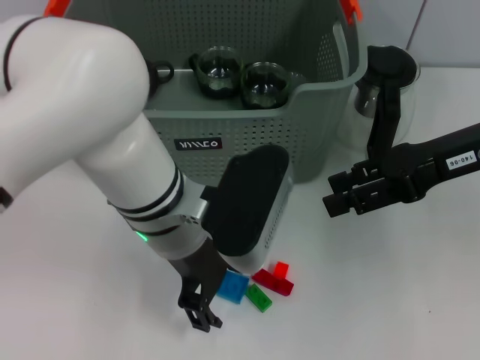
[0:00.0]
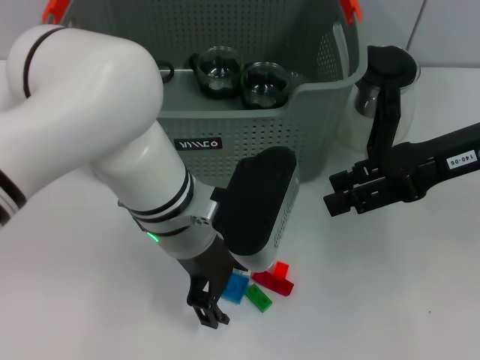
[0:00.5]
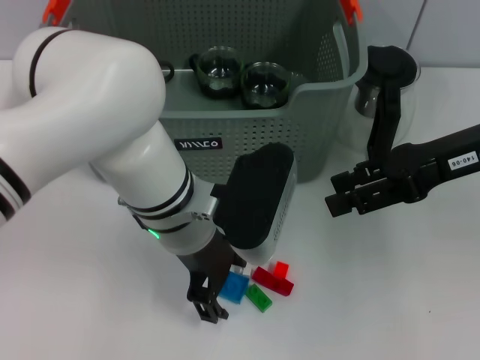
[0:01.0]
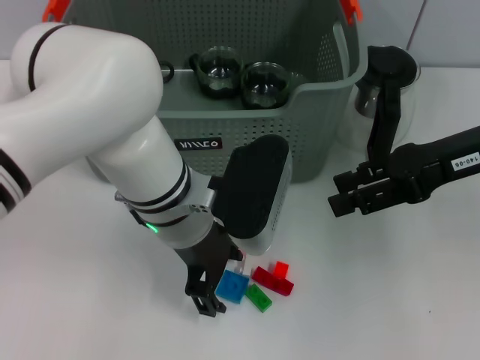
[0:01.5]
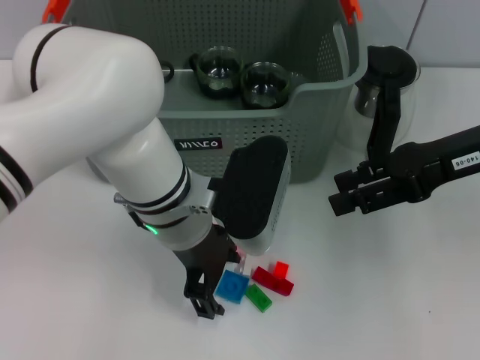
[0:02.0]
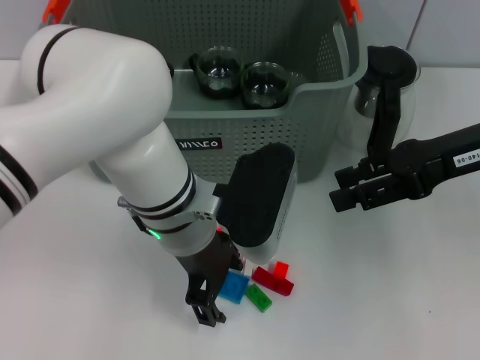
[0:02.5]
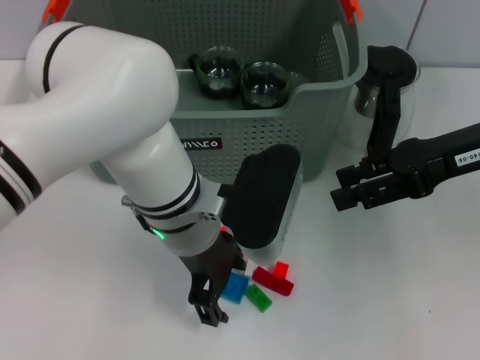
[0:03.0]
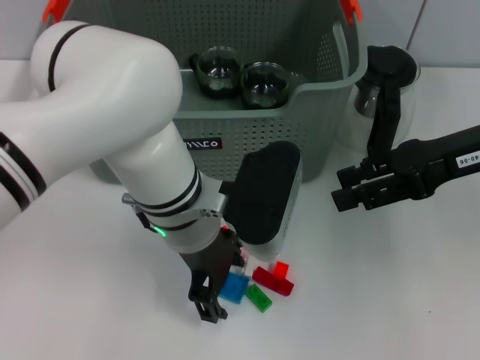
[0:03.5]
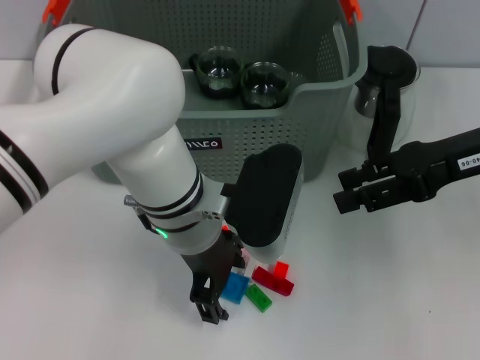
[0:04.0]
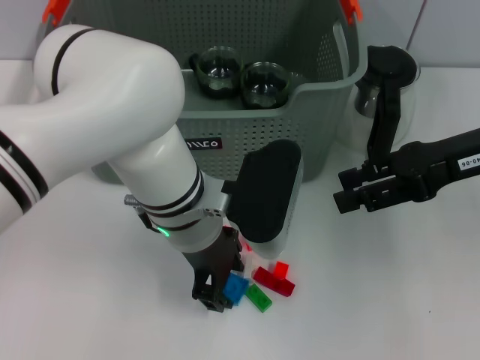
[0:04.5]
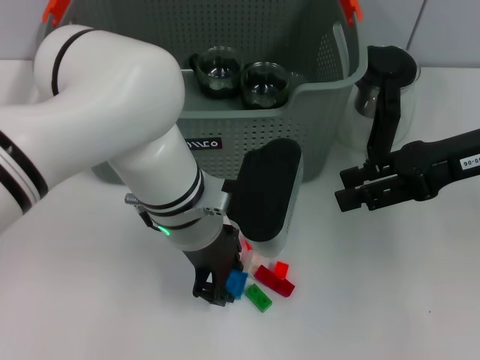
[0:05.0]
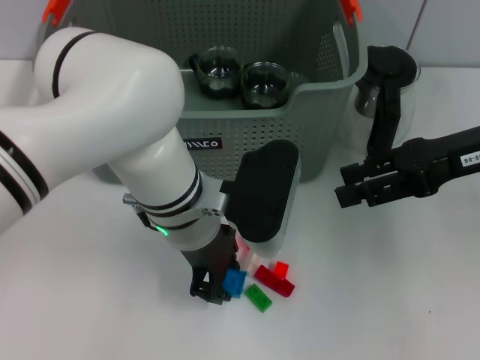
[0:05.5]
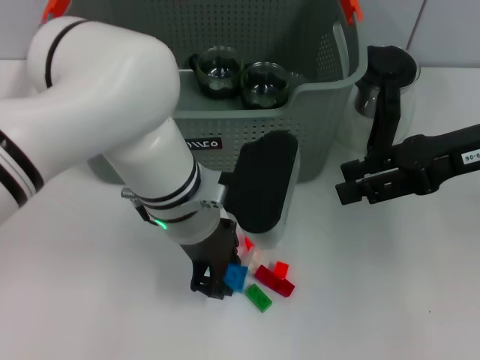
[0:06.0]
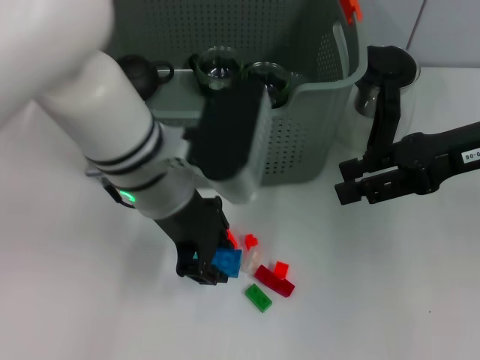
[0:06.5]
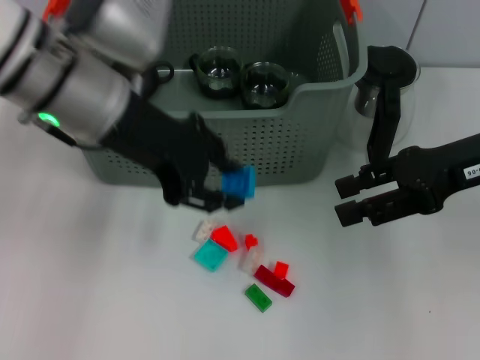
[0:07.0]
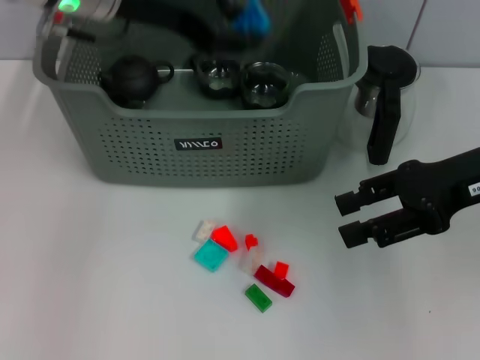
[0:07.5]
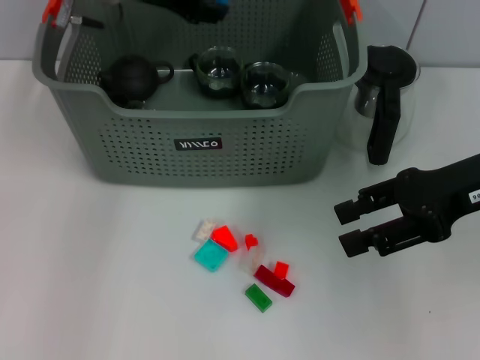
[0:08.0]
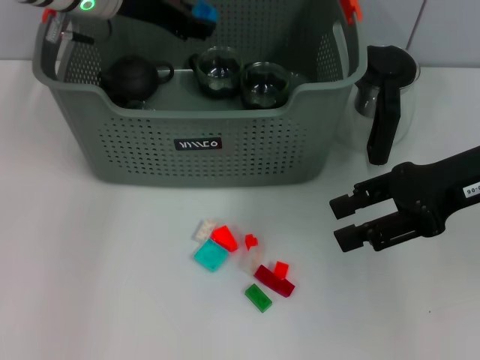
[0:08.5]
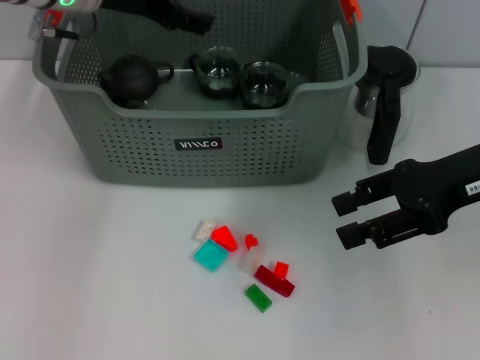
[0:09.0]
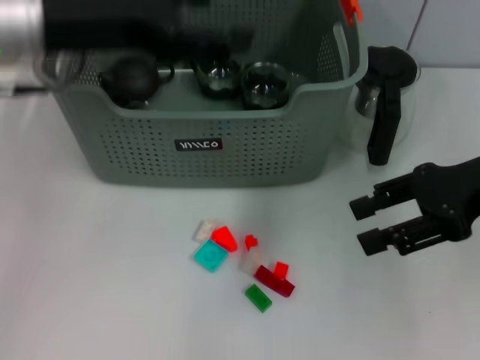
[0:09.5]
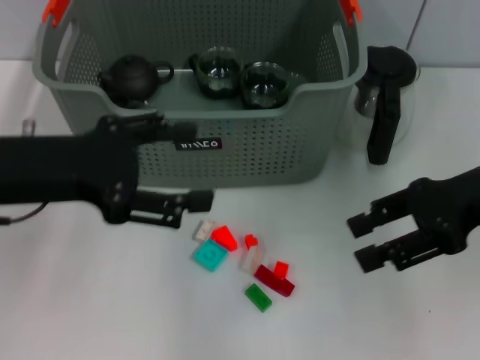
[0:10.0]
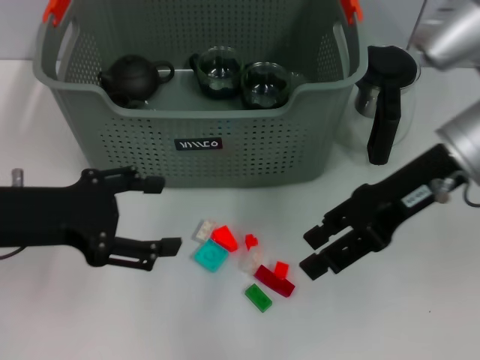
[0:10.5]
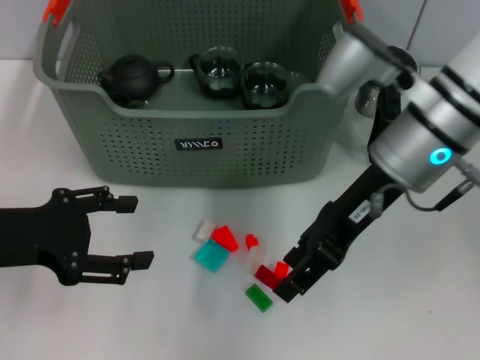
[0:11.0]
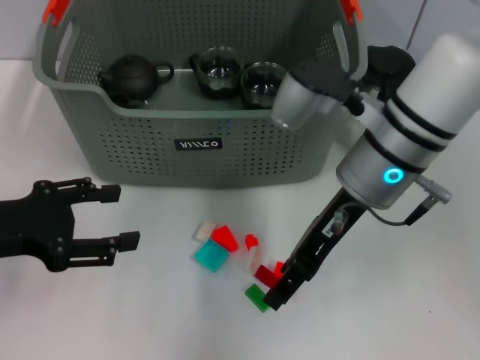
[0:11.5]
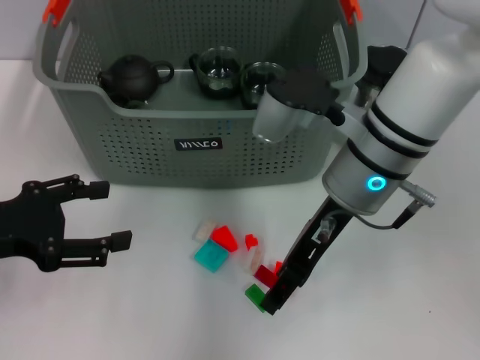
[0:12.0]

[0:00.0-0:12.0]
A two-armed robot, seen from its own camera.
Task of the whole recording: pick up the teacup on the table and place it into the storage bin, pick up the block on the table and place it into the storage bin.
Step, 0:00.0 to 0:05.5: Grasp the dark blue block with left gripper.
Step, 0:06.0 to 0:09.0: Place the dark blue block in the storage box with left gripper.
0:00.0 to 0:02.0: There are only small adjustments of the grippers.
0:02.0 to 0:04.0: Neither gripper changes place.
0:04.0 to 0:06.0: The left gripper closes its fingers.
0:06.0 to 0:08.0: The left gripper is displaced forward, upward and to the left by roughly 20 cm.
0:08.0 to 0:10.0: The left gripper travels backward and to the left by approximately 20 cm, and opens up.
0:10.0 to 0:12.0: The right gripper goes about 15 cm to the left, while the left gripper heads to the left and downward, covering roughly 10 cm.

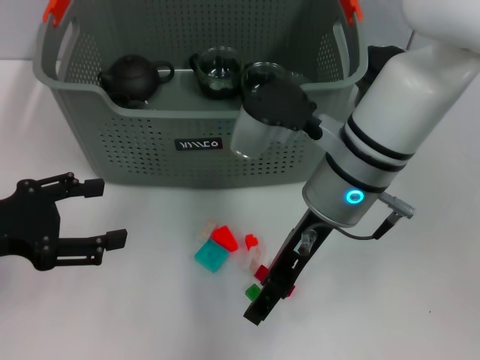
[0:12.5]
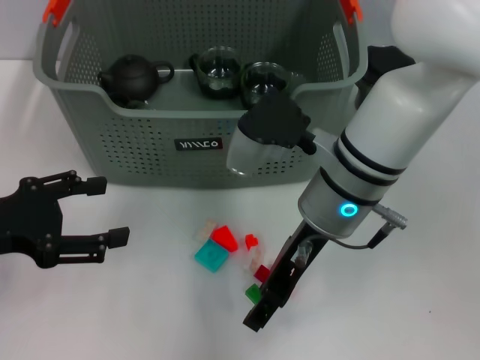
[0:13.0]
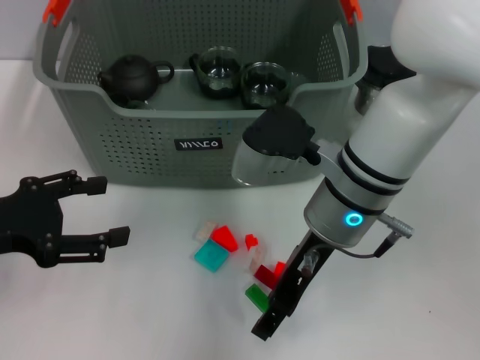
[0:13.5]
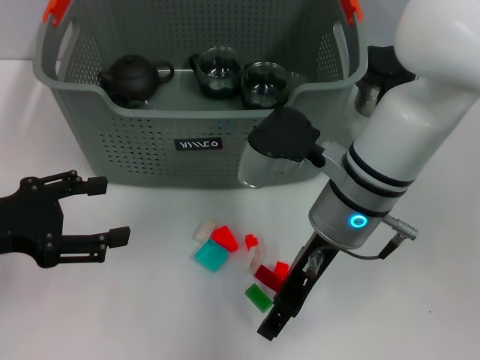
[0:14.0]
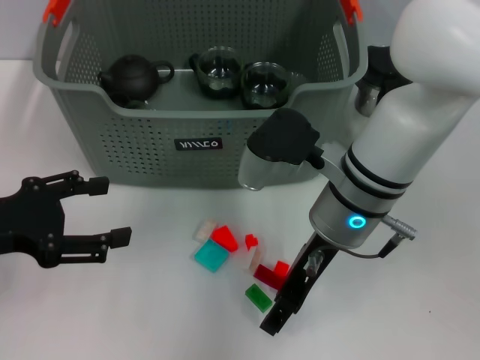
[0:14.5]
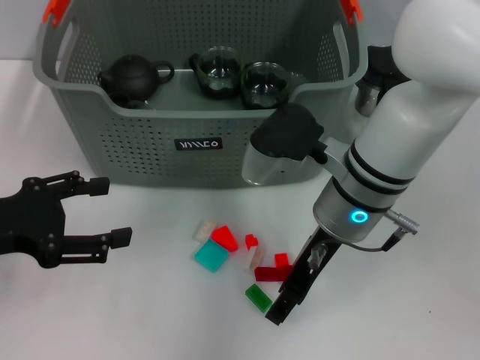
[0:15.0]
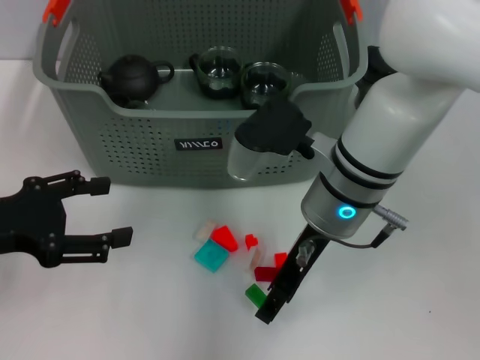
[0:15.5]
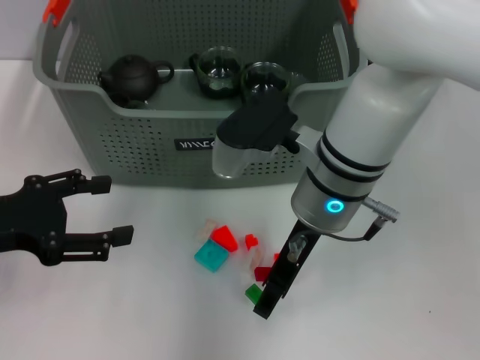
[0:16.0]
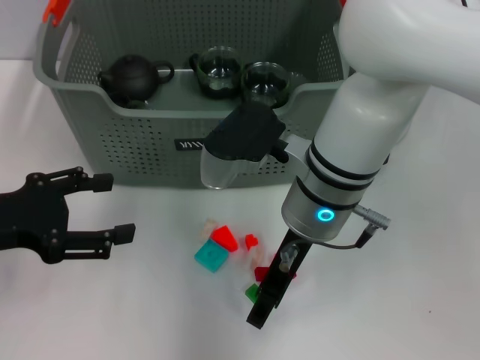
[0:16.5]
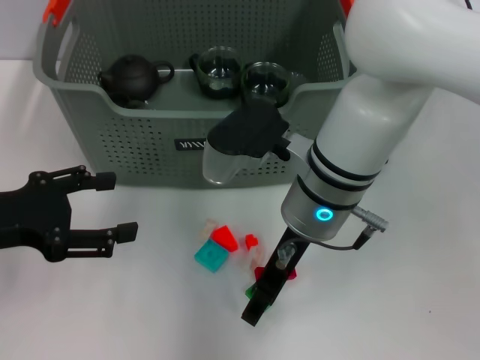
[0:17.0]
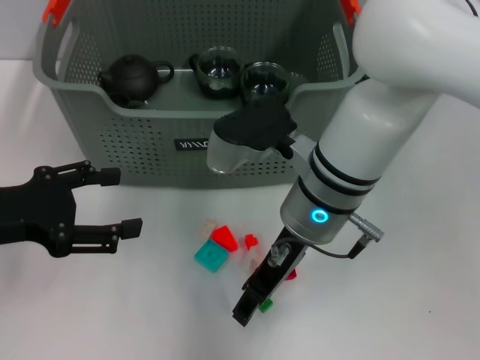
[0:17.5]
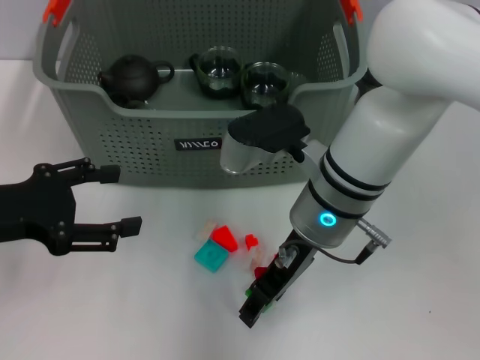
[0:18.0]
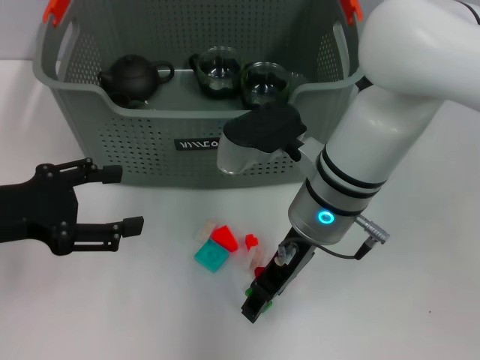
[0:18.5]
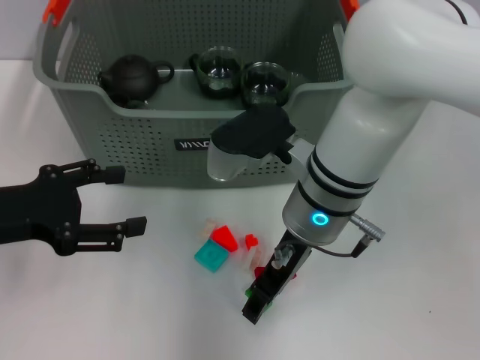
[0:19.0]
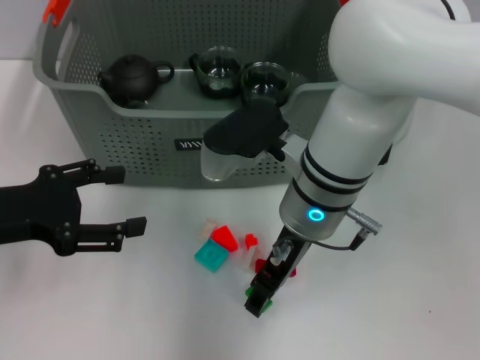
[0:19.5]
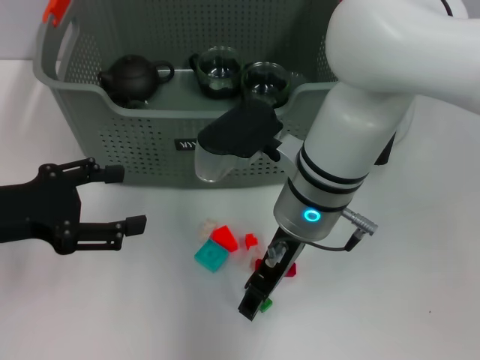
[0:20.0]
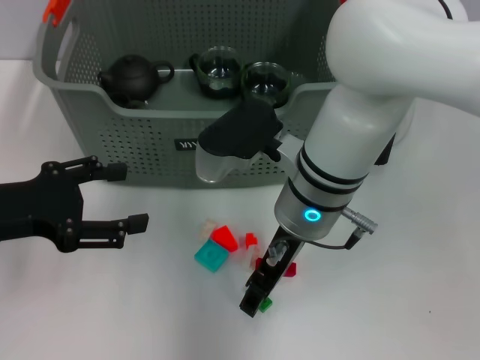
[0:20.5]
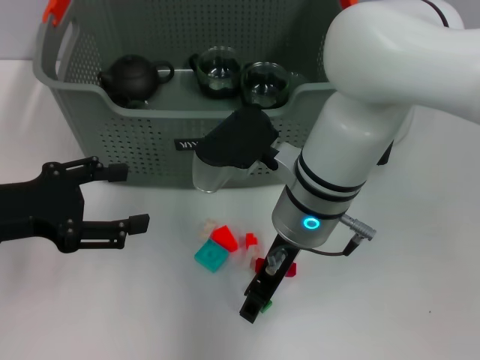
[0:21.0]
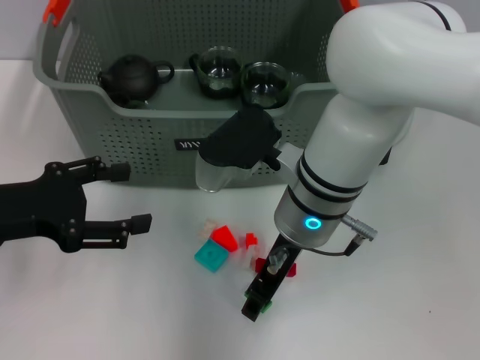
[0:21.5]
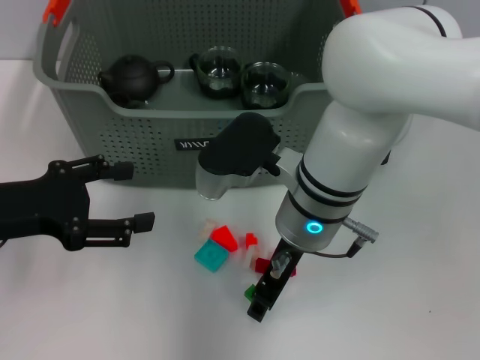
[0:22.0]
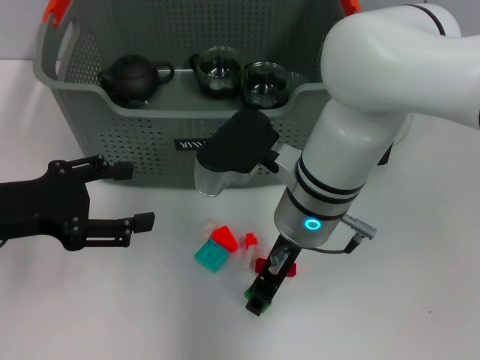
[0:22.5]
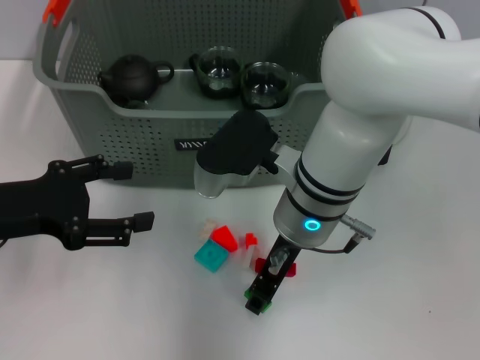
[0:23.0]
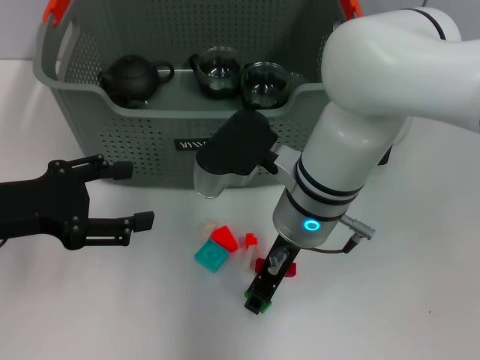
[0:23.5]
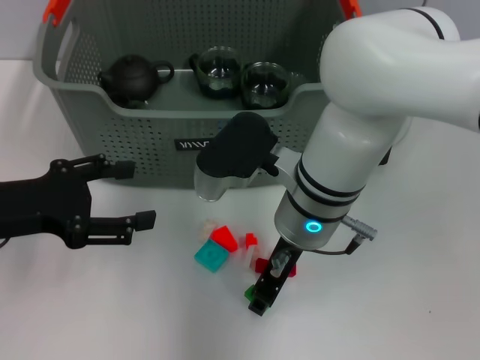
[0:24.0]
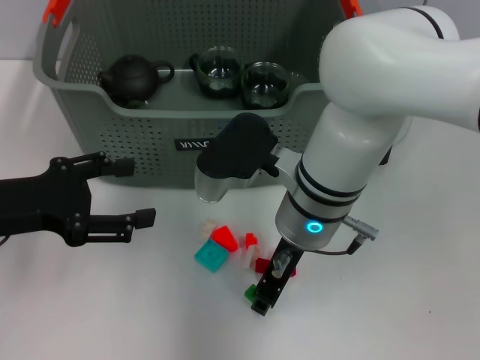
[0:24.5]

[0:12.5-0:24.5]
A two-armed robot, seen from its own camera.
Task of the whole recording: pick up the teacup on the table and place it into the storage bin, pick up the block on the table and place it into the storage bin.
0:12.5 to 0:14.5: The grippers make only small movements.
0:16.5 to 0:20.5: The grippers make only small movements.
0:20.5 to 0:22.5: Both grippers stay about where they are.
0:22.5 to 0:24.5: Both grippers stay put.

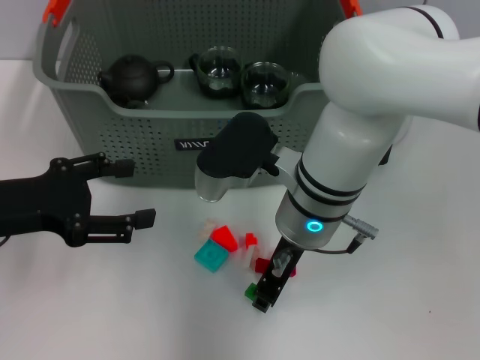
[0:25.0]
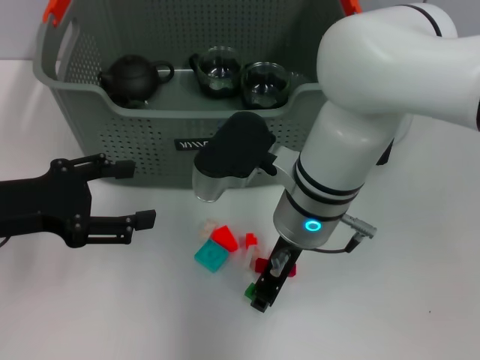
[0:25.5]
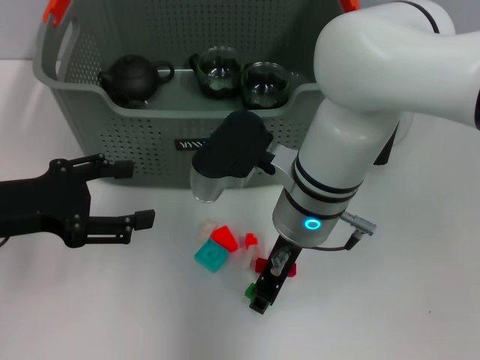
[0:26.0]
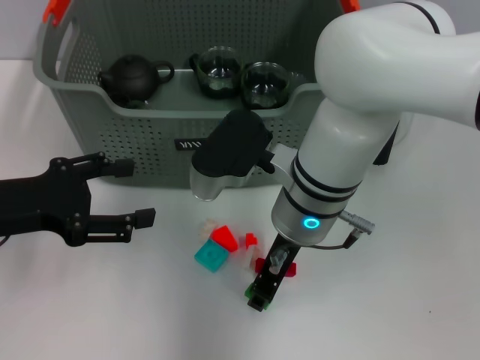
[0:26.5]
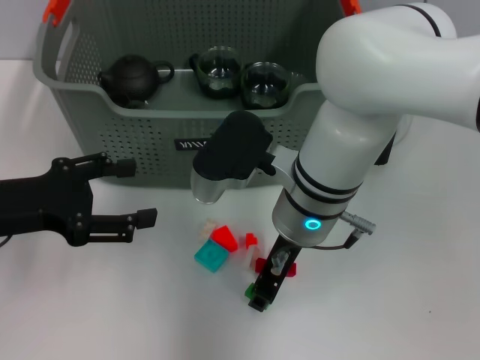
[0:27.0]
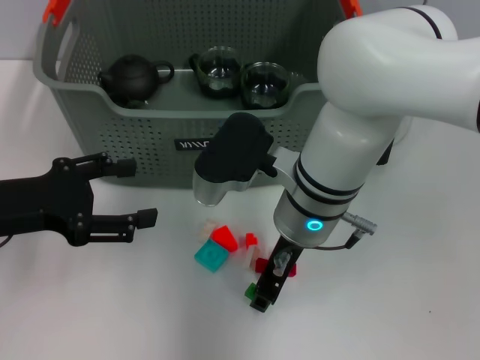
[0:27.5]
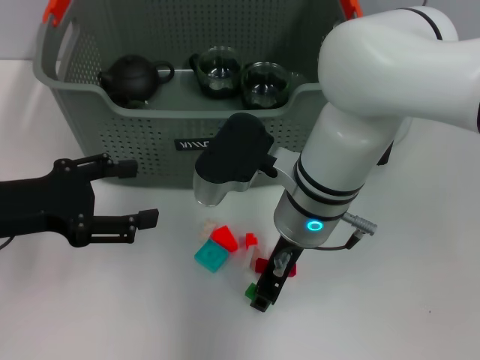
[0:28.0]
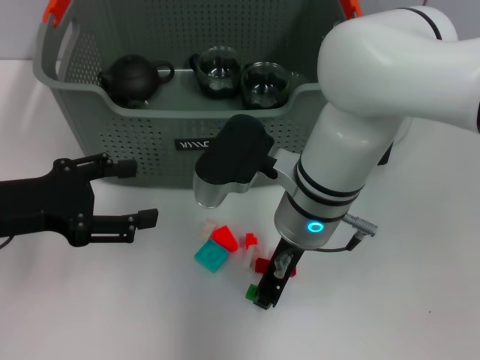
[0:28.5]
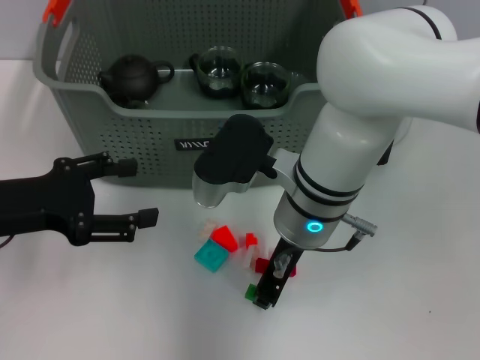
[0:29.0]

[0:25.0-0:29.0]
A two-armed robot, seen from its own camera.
Task of the whole recording: pick up the teacup on the table and place it into the storage bin, pick up the block on the table and place it into the storage bin.
Step, 0:25.0 to 0:28.5: Grasp the green block with right gripper.
0:25.0 to 0:29.0: Both grippers stay put.
